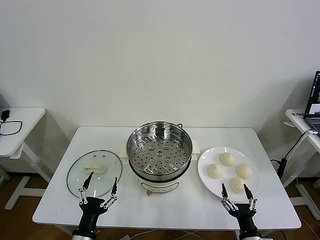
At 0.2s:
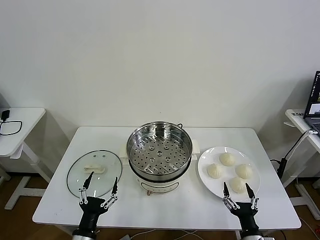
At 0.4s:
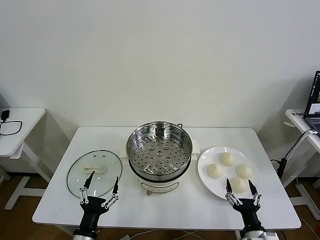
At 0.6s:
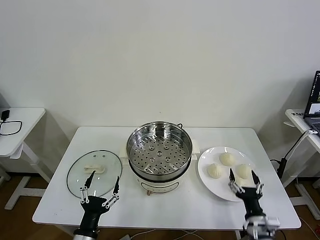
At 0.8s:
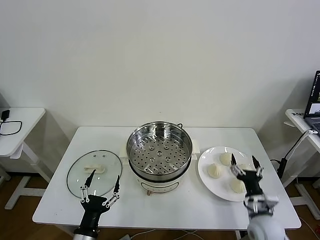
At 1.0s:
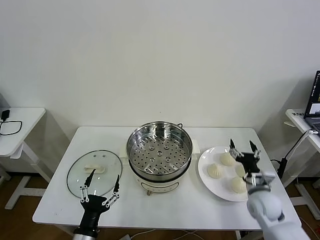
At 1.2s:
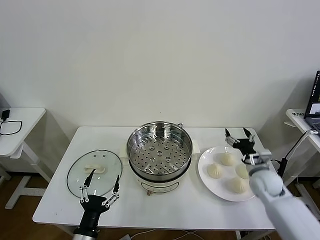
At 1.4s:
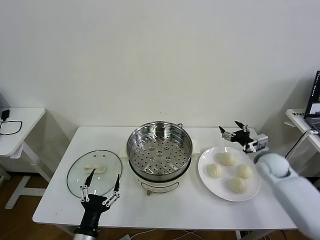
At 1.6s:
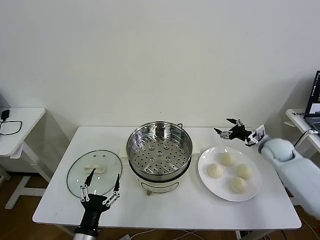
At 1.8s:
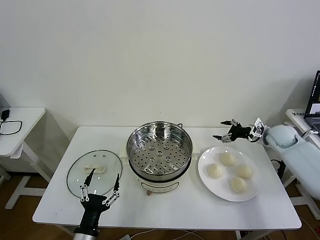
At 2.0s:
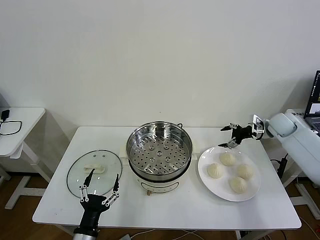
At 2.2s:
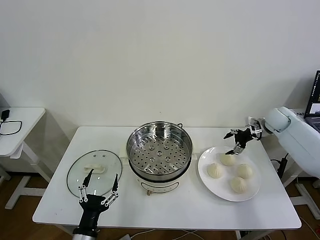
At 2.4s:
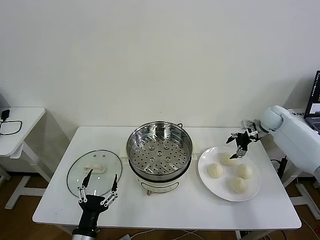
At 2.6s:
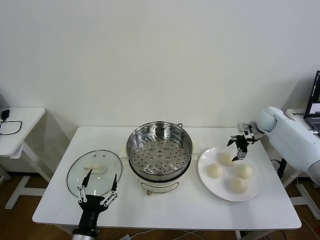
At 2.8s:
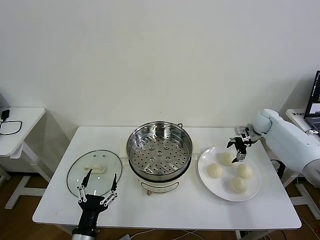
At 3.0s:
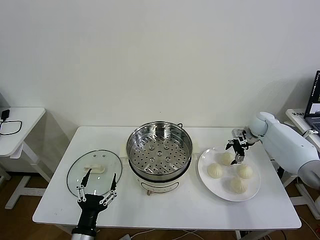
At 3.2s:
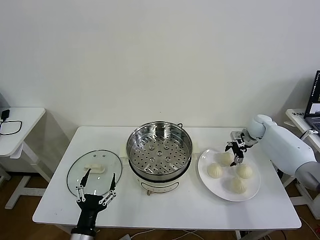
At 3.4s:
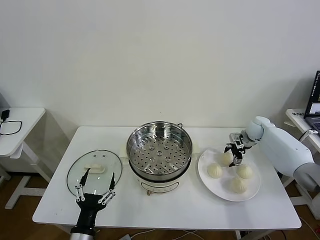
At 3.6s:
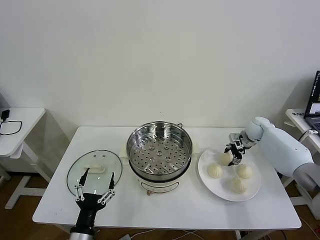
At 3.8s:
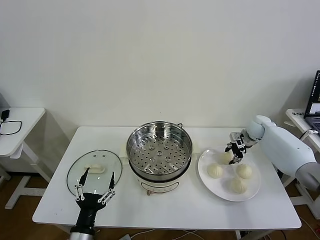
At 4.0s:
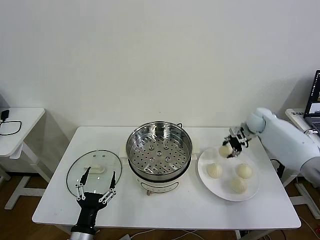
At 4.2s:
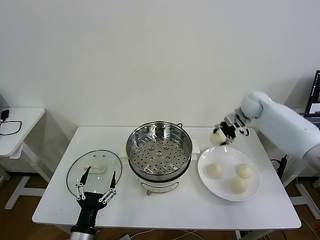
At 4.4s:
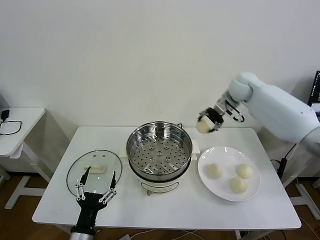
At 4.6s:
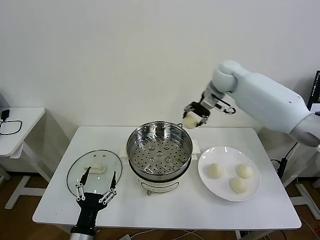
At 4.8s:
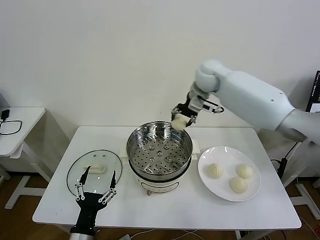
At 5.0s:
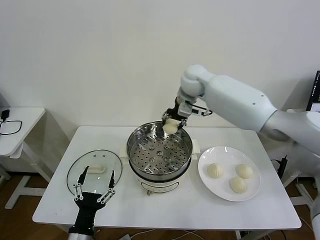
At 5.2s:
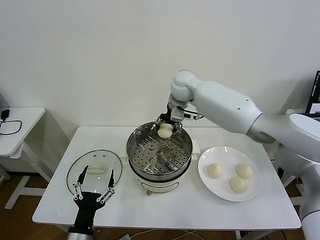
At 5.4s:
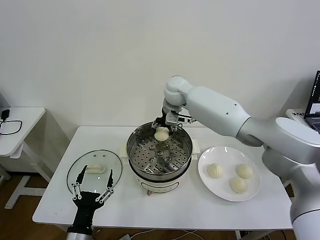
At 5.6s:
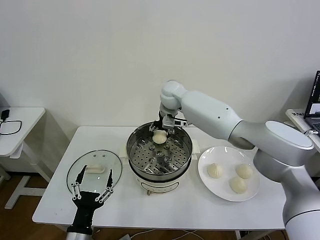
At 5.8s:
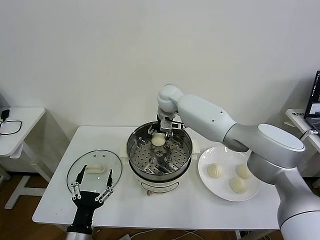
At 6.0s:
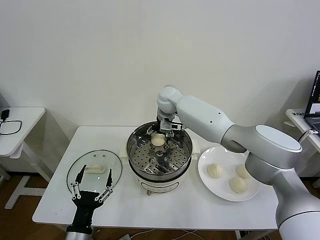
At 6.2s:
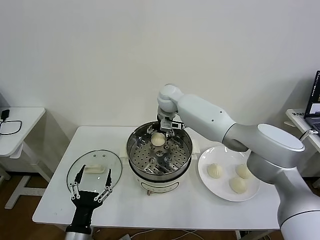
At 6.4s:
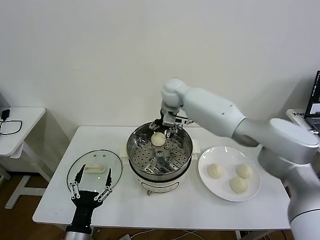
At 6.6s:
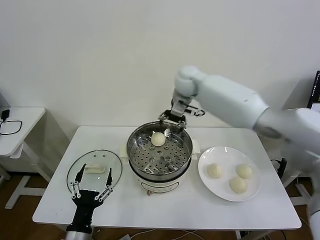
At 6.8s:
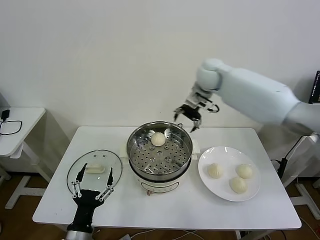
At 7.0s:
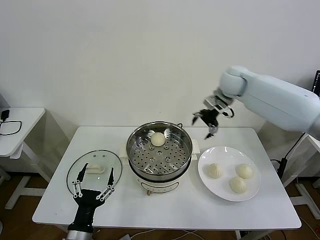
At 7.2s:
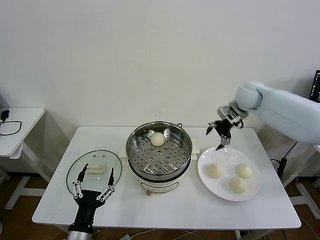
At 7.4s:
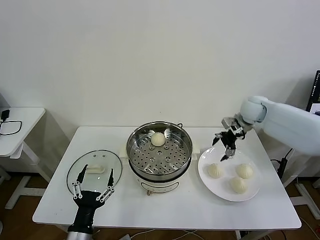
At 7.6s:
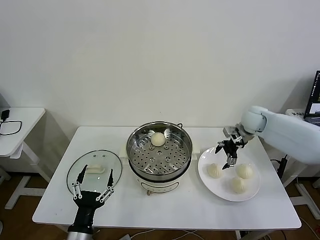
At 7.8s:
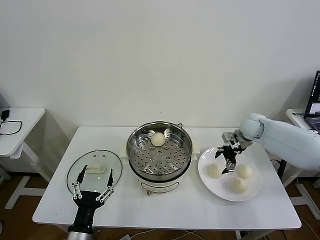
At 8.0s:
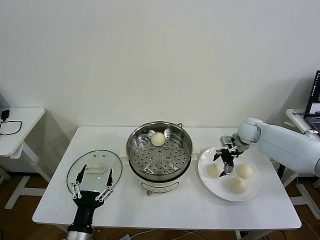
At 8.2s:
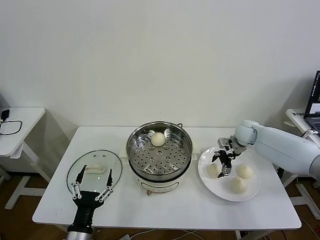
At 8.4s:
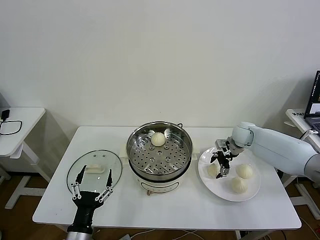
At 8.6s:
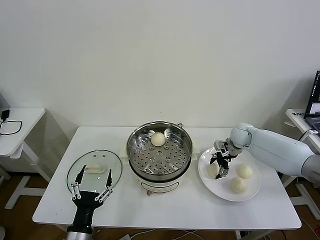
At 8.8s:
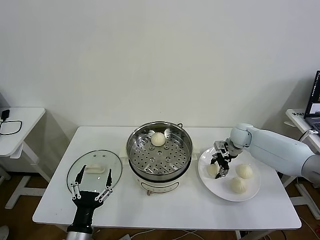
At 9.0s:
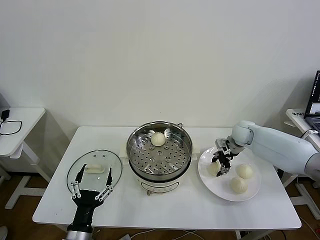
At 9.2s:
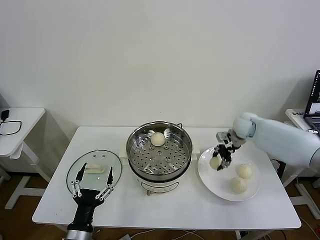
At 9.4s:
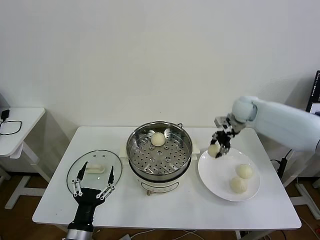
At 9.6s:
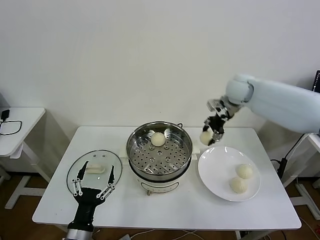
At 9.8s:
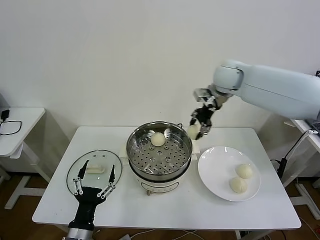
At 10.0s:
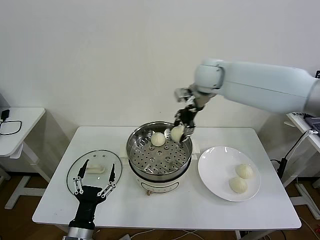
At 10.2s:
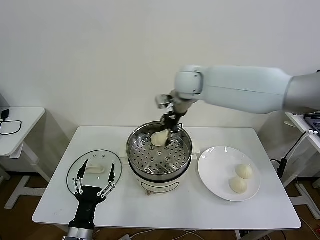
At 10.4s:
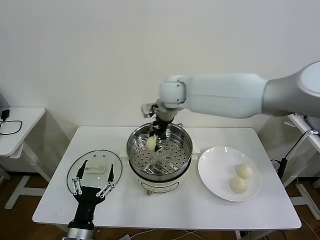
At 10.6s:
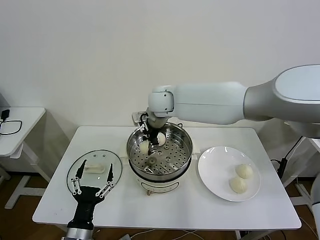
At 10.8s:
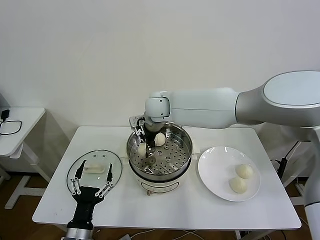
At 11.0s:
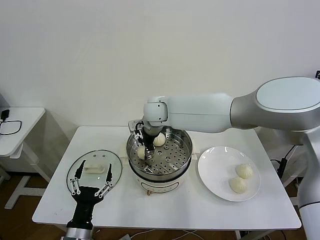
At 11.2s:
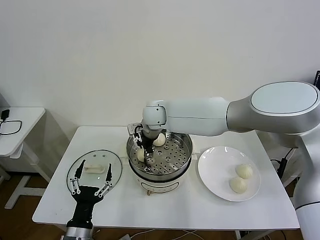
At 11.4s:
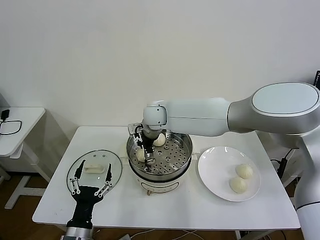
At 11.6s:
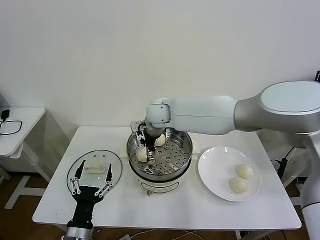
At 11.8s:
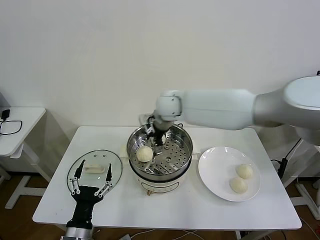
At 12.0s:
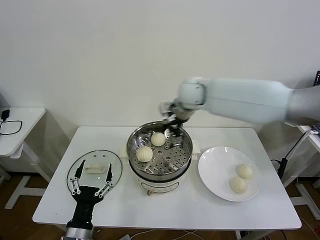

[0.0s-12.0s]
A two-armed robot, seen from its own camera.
Task of the whole recording: take steamed baozi put them in steamer then cover it.
Step, 0.0s to 3.8s: Grasp the baozi in the plate with right gripper.
Step, 4.0s to 6.2s: Place the baozi on the steamer with right gripper.
Step, 6.4s to 8.8s: Grasp the baozi in the plate with right gripper.
Step, 9.0s to 11.8s: Place the baozi on the steamer with right gripper.
1.6s to 3.0s: The right gripper moves forward, roughly 10 cm.
3.0s to 4.4s: The right gripper goes roughly 25 cm upward and to the left, and closes.
4.4s to 6.0s: The right gripper travels to the left and downward by about 25 cm, and opens up.
6.0s to 7.6s: The right gripper travels to the right by some 30 cm.
7.6s to 9.0s: The right gripper closes its fingers.
9.0s to 10.4s: The right gripper heads to the left and upward, covering approximately 35 cm.
10.4s to 12.0s: The right gripper goes approximately 10 cm to the right, and opens.

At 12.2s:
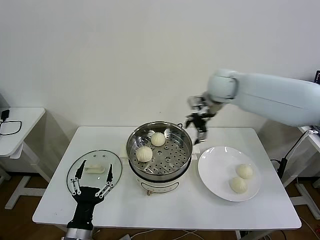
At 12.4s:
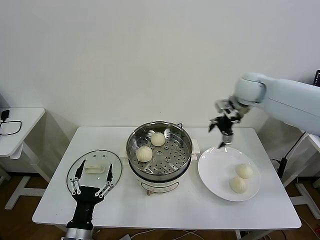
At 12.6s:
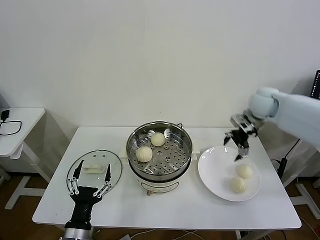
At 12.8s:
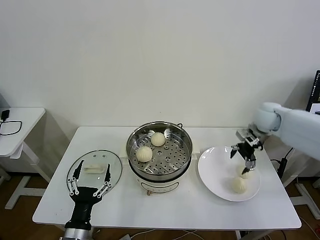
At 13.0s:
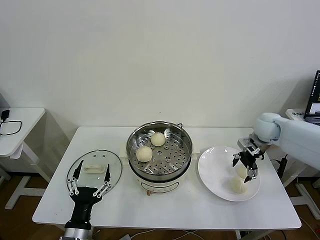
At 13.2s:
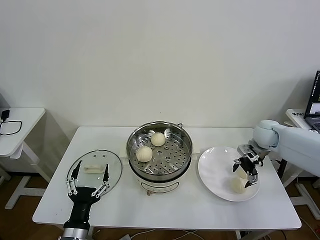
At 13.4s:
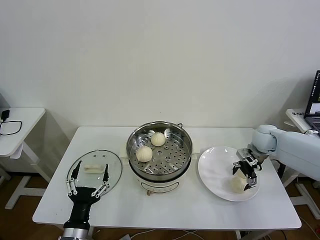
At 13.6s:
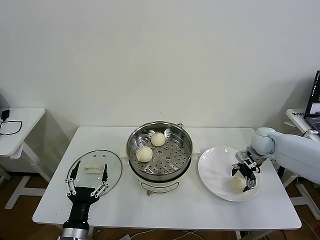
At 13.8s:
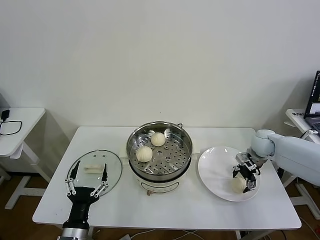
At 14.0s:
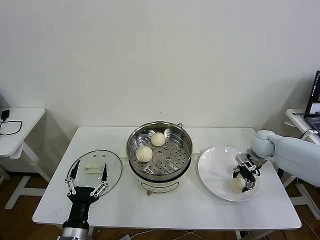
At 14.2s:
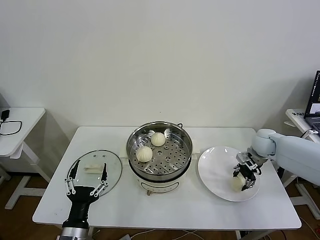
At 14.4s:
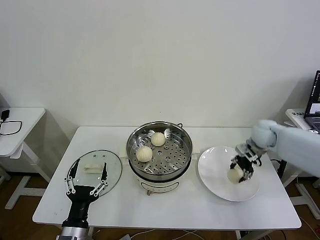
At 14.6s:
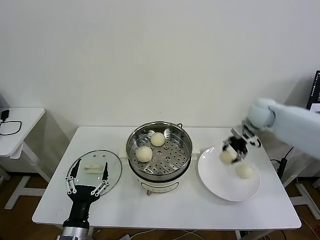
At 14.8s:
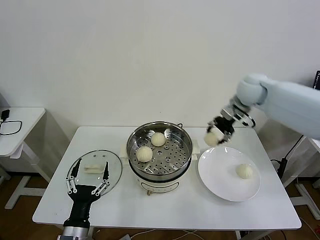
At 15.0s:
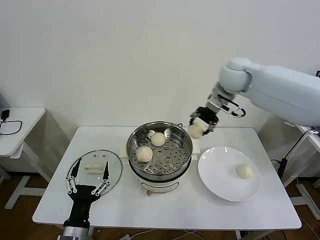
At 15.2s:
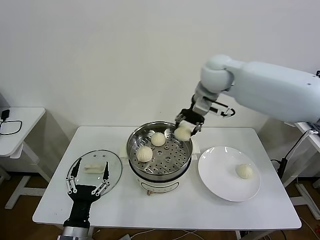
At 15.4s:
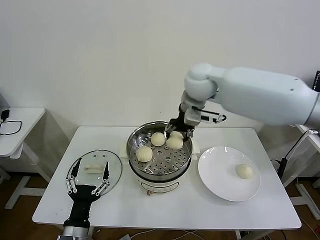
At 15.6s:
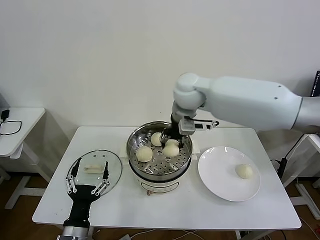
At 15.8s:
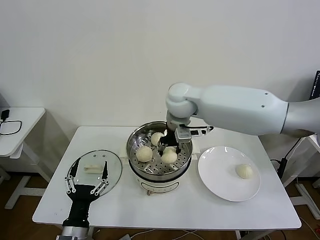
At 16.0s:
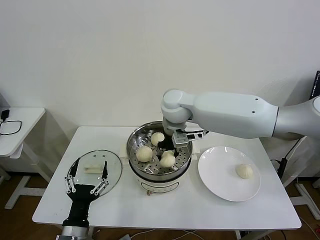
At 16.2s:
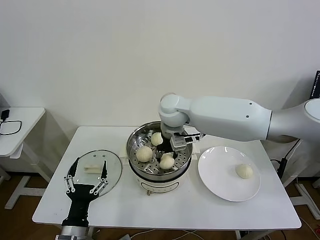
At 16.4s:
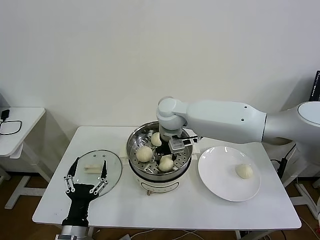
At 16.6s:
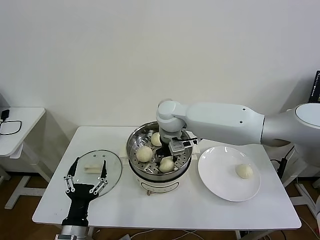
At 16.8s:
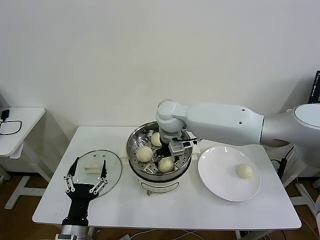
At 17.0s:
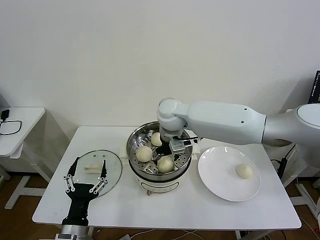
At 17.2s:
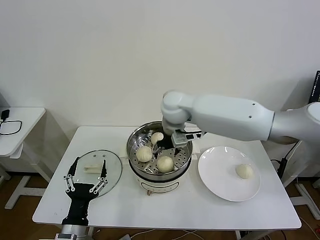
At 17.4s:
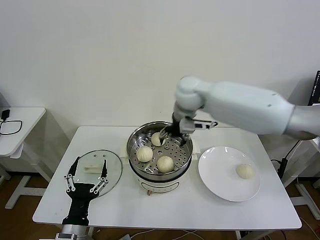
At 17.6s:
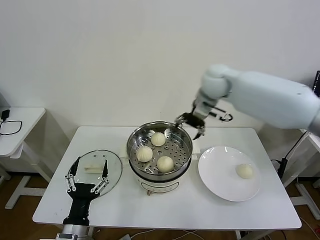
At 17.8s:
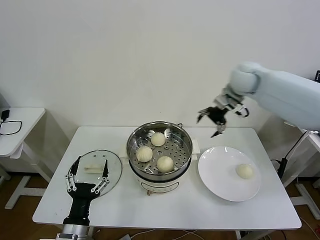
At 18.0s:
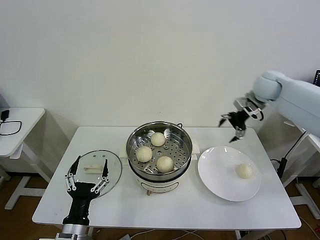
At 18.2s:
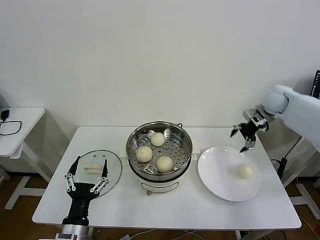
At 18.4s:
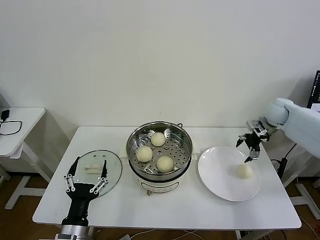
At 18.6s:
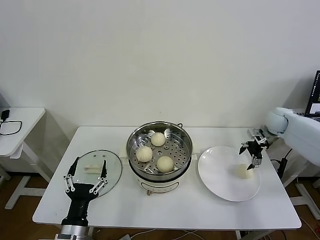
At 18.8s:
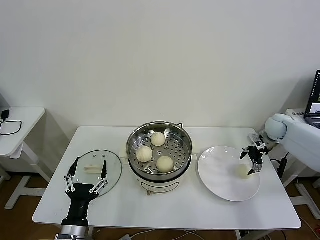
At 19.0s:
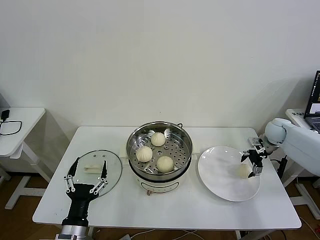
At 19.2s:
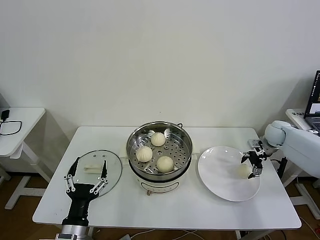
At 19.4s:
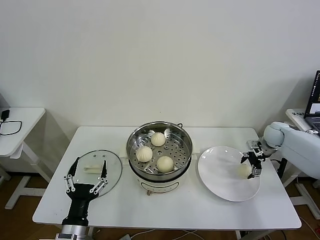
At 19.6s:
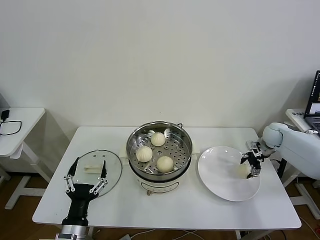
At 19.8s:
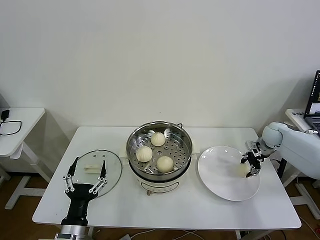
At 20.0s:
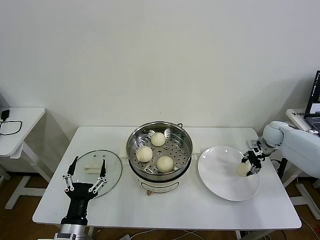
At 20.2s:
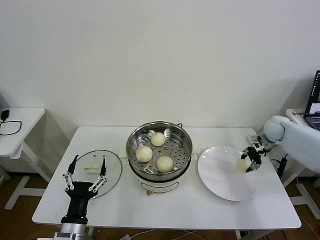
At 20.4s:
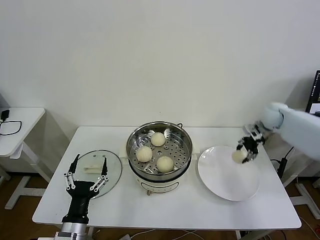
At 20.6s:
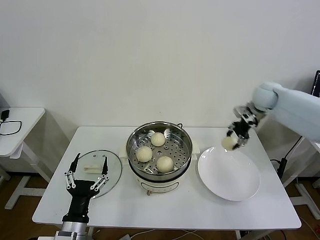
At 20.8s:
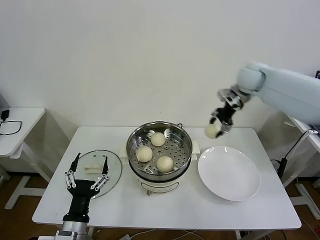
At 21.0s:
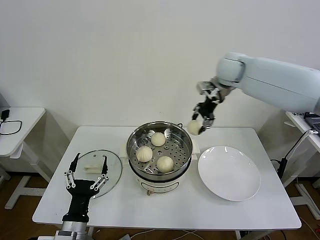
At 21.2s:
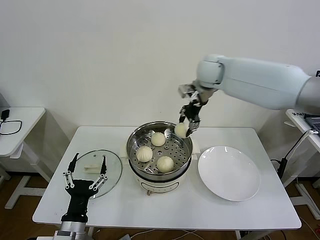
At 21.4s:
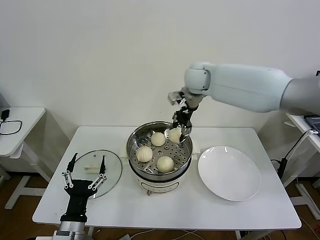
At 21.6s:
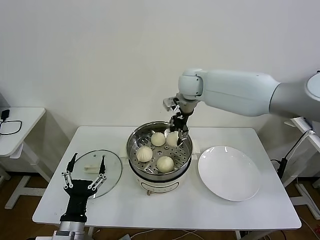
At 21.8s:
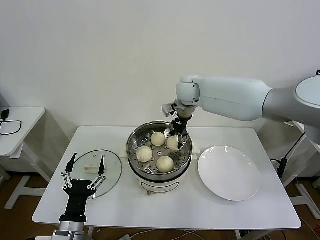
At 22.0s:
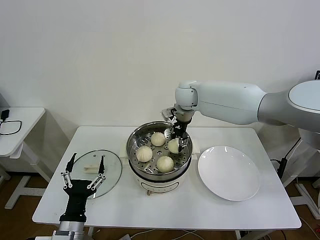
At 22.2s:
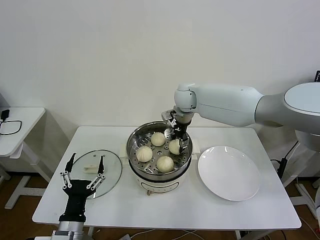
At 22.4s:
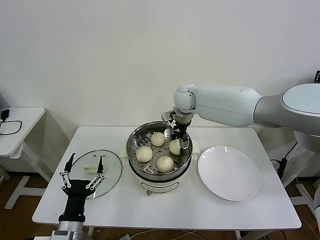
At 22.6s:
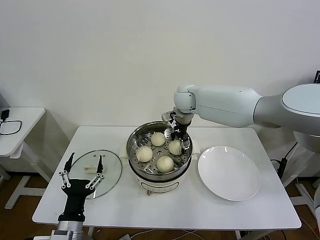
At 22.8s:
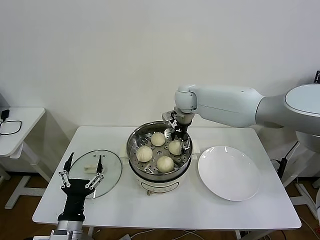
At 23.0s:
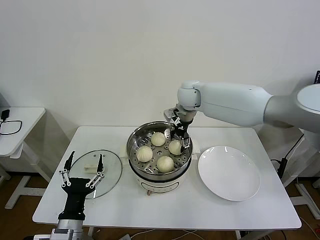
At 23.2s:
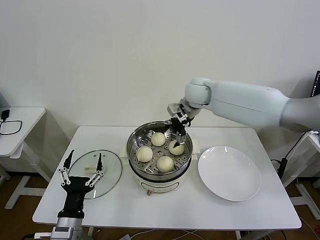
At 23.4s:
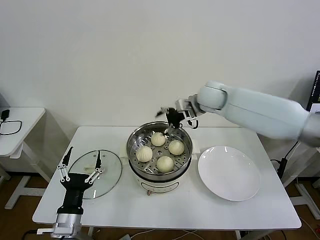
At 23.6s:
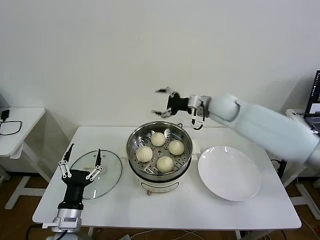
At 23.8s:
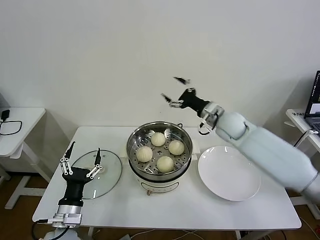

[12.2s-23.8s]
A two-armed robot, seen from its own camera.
Task of the whole recording: take steamed baozi put them in steamer then cover it.
Step, 12.2s to 14.2s: Grasp the baozi in the plate with right gripper.
Step, 14.4s to 17.2s: Place the baozi on the steamer with right gripper.
Step, 17.4s to 20.0s: Grasp the baozi in the plate with right gripper.
Step, 20.2s to 23.0s: Place the baozi on the steamer with right gripper.
12.2s to 13.6s: The right gripper heads downward and to the right, covering about 25 cm.
13.6s to 15.0s: The right gripper shifts approximately 30 cm upward and to the left, and closes up.
15.0s to 16.6s: The right gripper is displaced to the left and downward by some 20 cm.
16.6s to 18.0s: The right gripper shifts roughly 35 cm to the right, and opens its fingers.
18.0s to 19.4s: The right gripper moves downward and to the right, about 20 cm.
19.4s to 21.0s: The right gripper is displaced upward and to the left by approximately 35 cm, and closes up.
21.0s to 22.4s: The right gripper goes approximately 15 cm to the left and downward, and opens its fingers.
22.4s to 23.8s: The right gripper is displaced to the right and backward by about 15 cm, and opens up, while the left gripper ends up approximately 5 cm from where it was.
